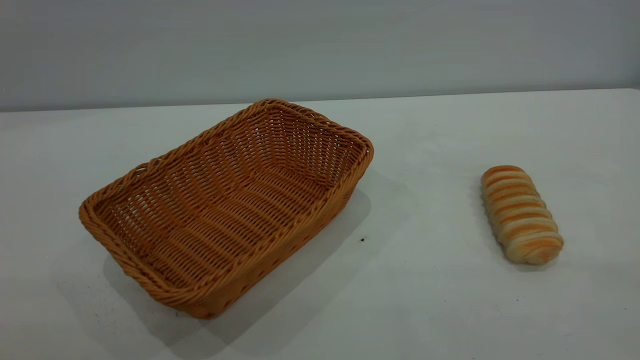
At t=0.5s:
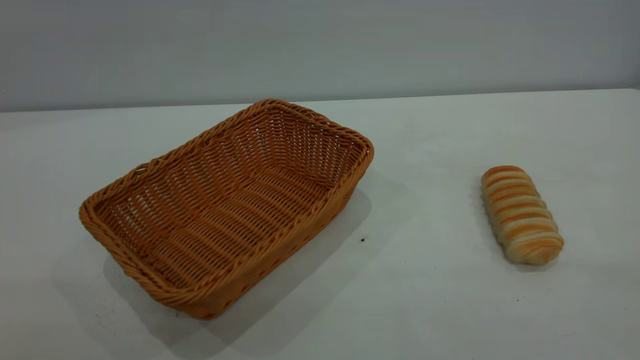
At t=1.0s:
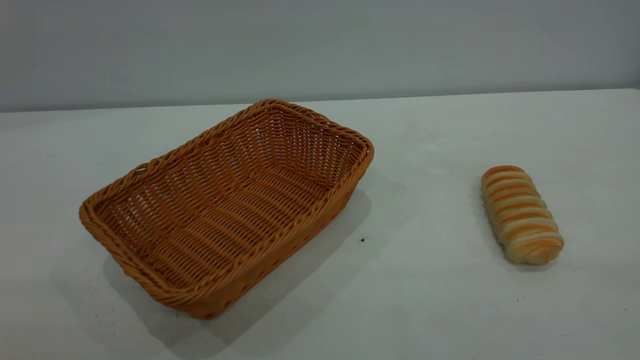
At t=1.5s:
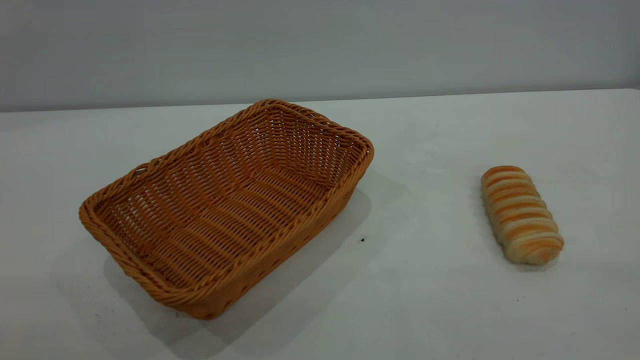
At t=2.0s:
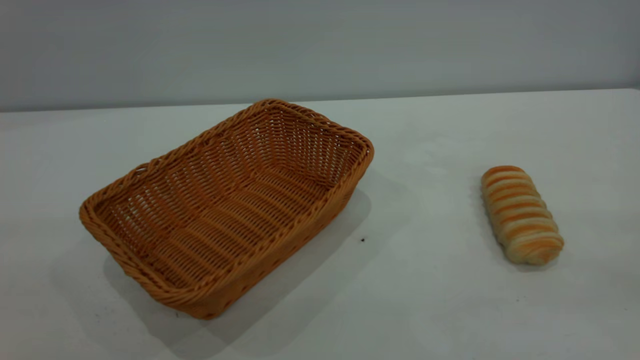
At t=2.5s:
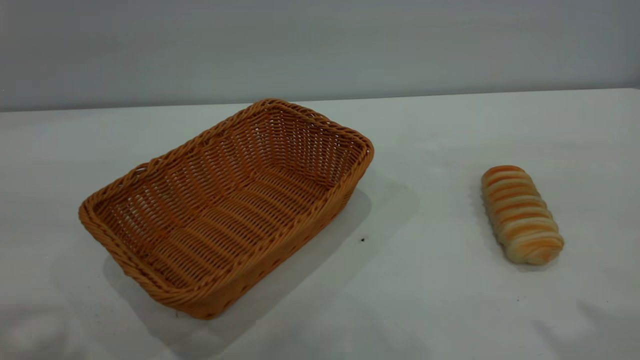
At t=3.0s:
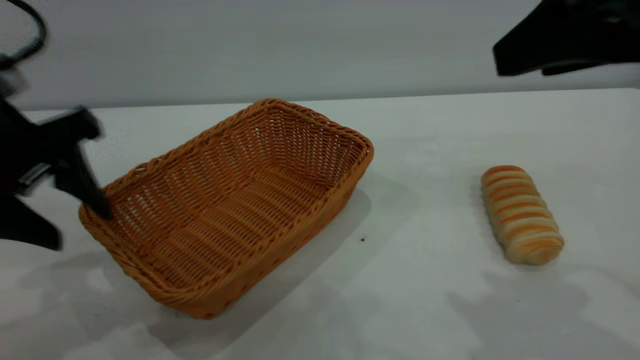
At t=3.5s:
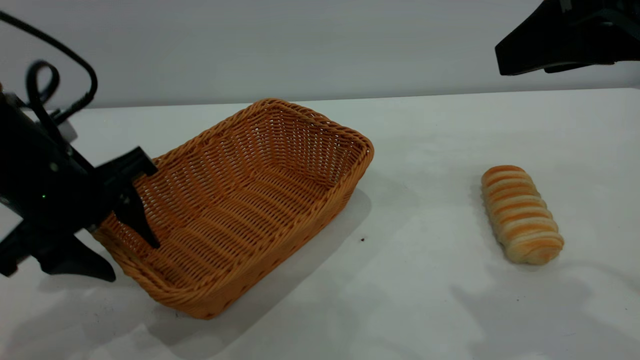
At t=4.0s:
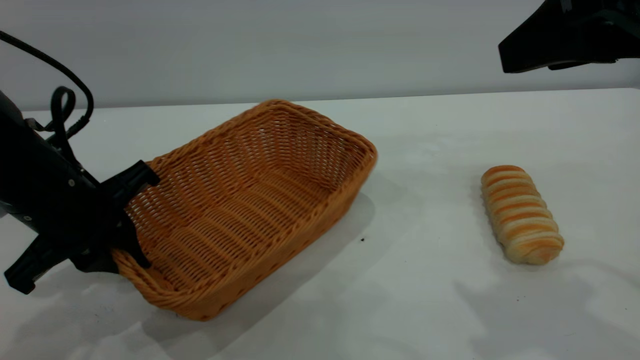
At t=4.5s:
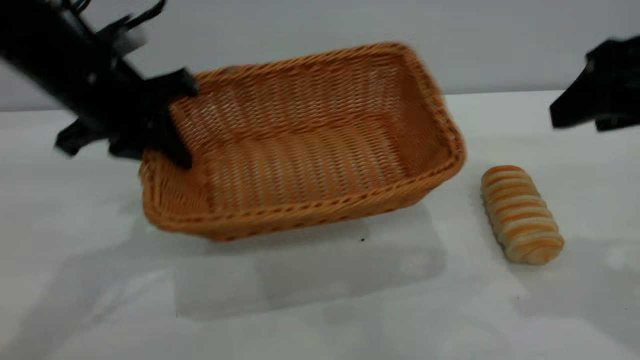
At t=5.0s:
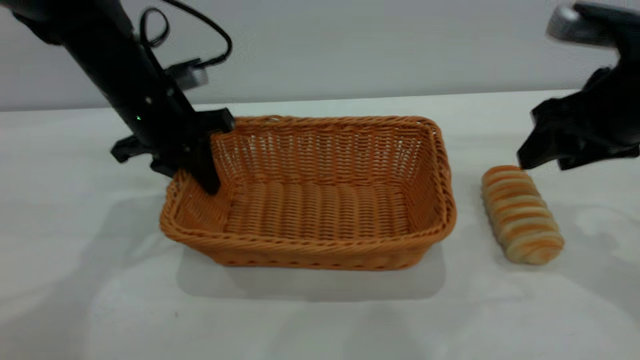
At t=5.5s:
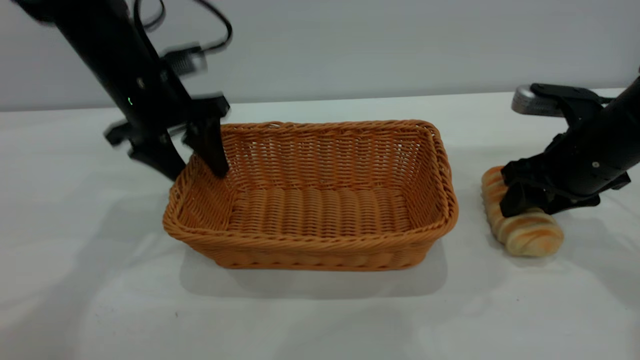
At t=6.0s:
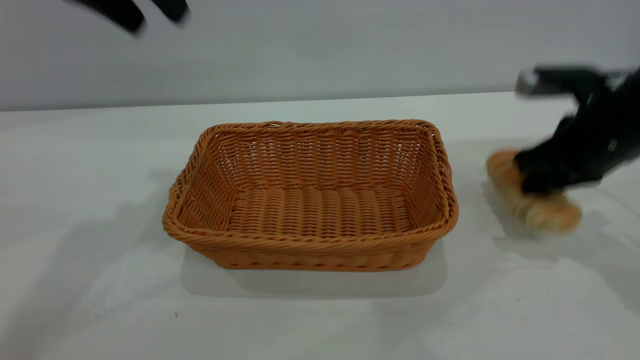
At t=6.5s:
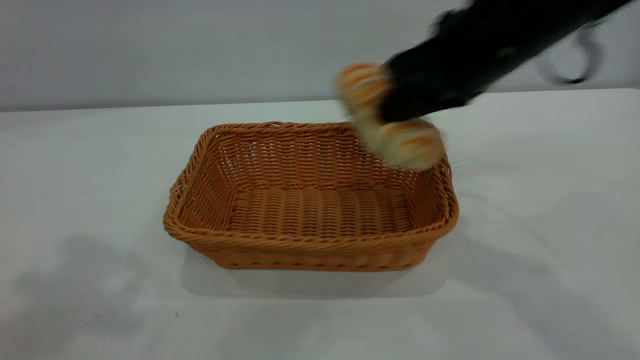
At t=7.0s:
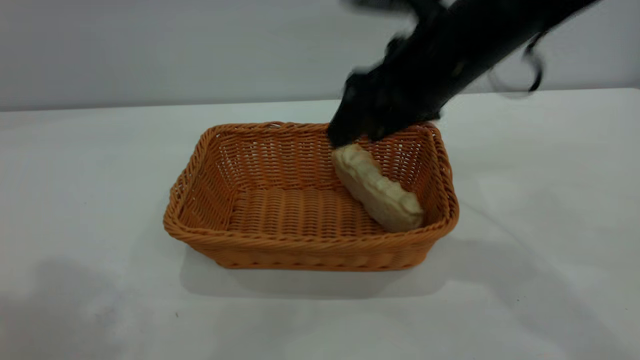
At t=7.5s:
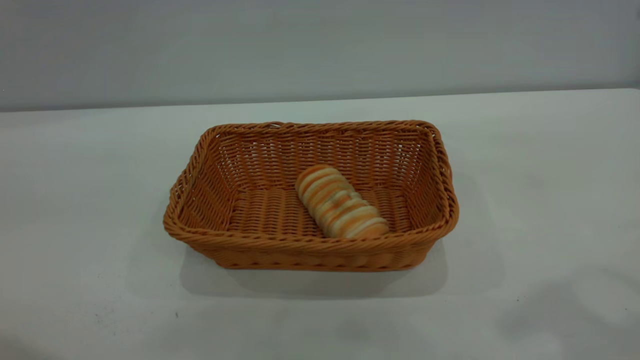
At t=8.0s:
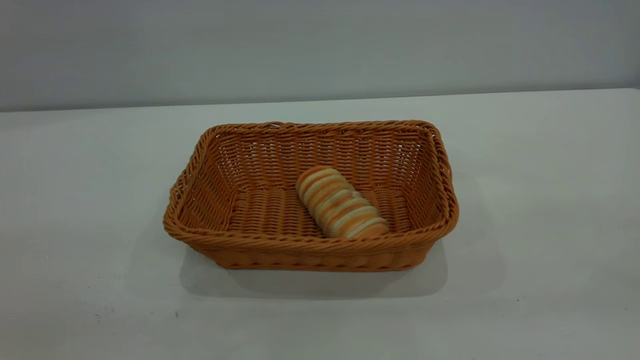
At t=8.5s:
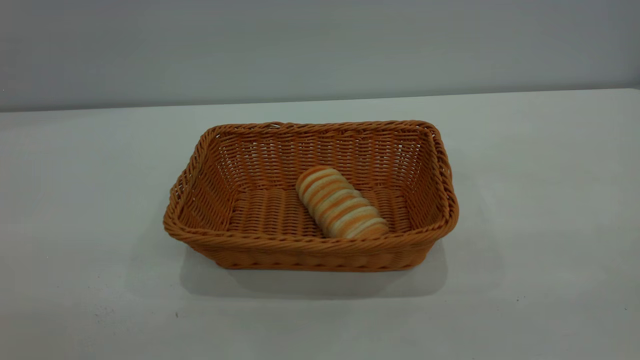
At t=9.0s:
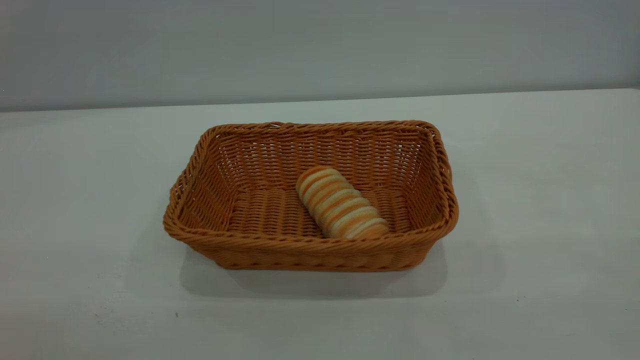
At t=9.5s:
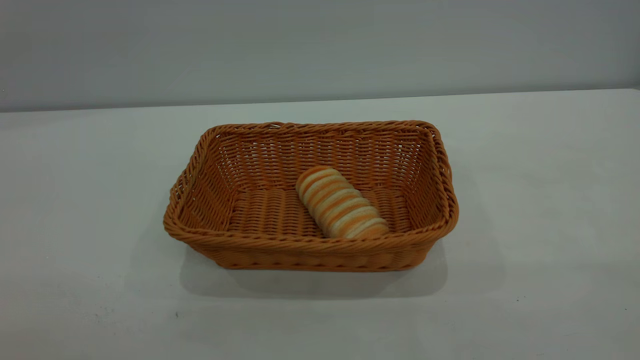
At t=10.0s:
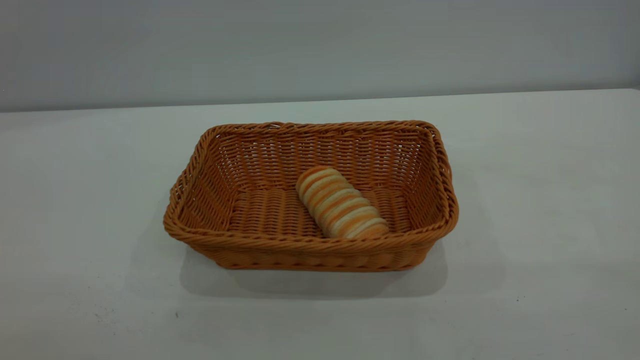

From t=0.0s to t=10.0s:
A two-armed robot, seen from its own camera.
Task of the whole recording: One hand grasps the yellow basket and places it in the middle of the table, while the other hand picks up the long bread and puts it into the yellow basket.
Step, from t=0.0s to t=5.5s: Move the basket to the center of view.
Step, from t=6.5s to t=7.0s: place the bread into the basket.
From t=2.0s to t=4.0s: The right gripper shifts approximately 20 cm forward, while the left gripper travels downward and forward by some 35 cm, and closes.
From t=4.0s to t=6.0s: The right gripper travels downward and forward by some 20 cm, and closes up. Meanwhile the left gripper goes up and down, about 20 cm each way, reversing 2 times, and opens up.
From t=6.0s to t=8.0s: The right gripper heads backward and upward, covering roughly 35 cm, and opens. The left gripper is displaced backward by about 30 cm.
